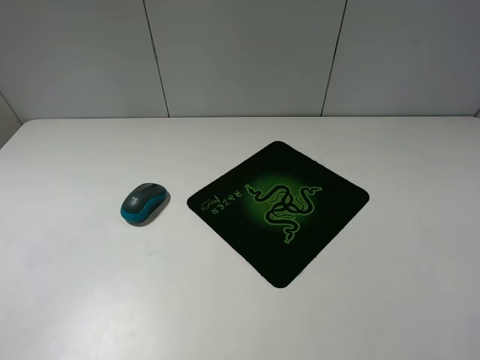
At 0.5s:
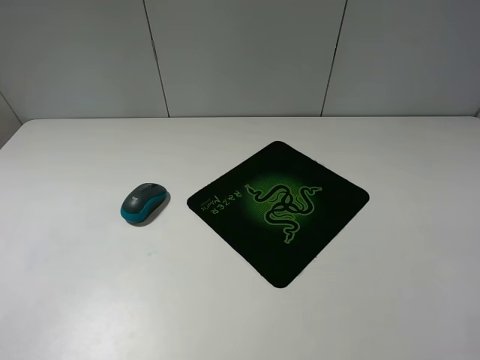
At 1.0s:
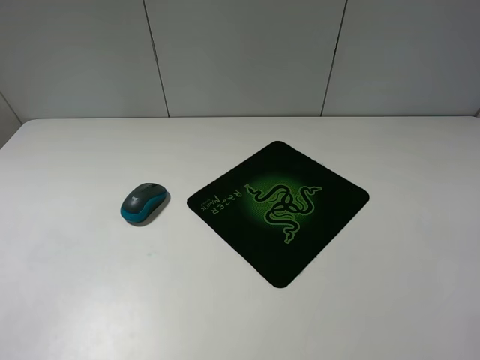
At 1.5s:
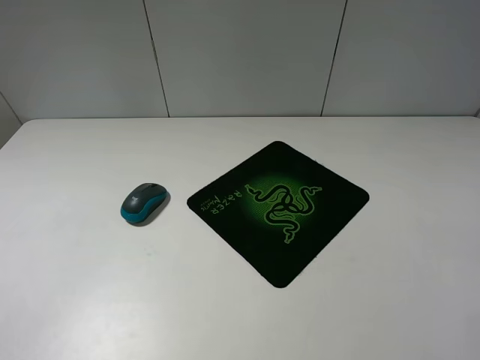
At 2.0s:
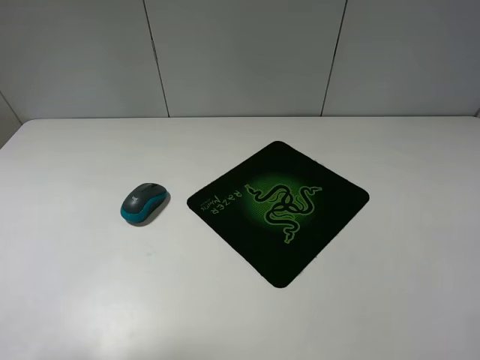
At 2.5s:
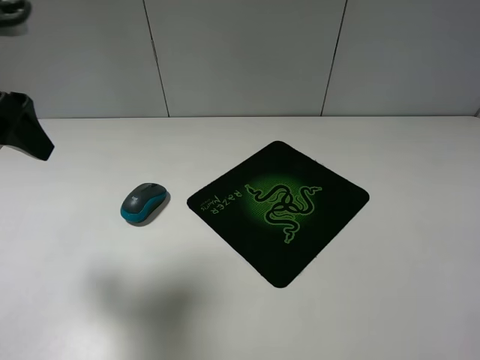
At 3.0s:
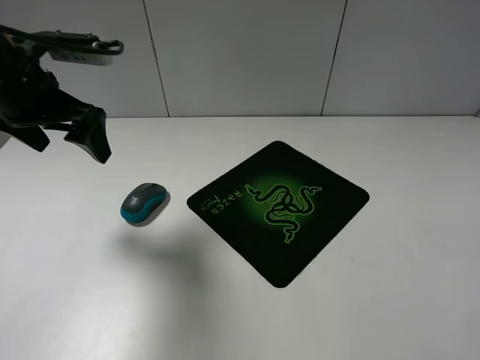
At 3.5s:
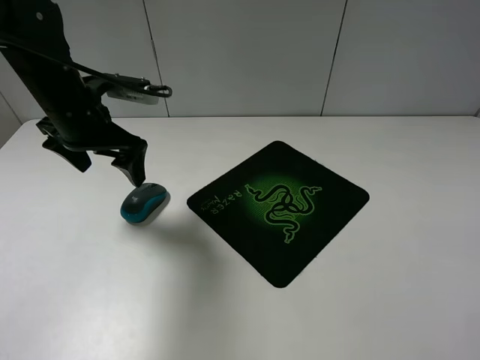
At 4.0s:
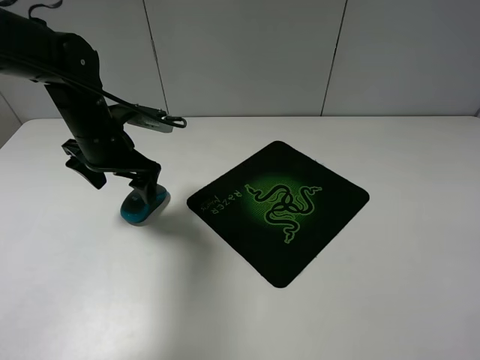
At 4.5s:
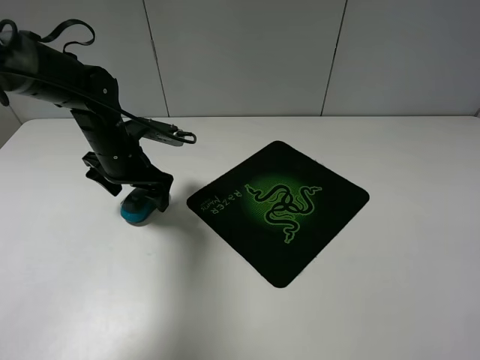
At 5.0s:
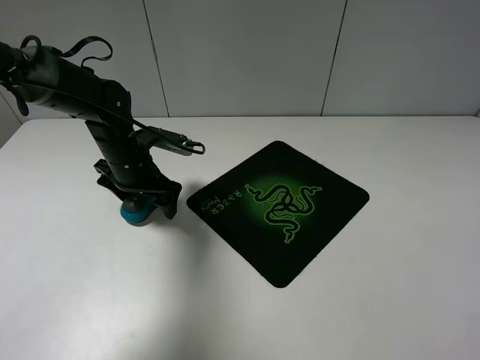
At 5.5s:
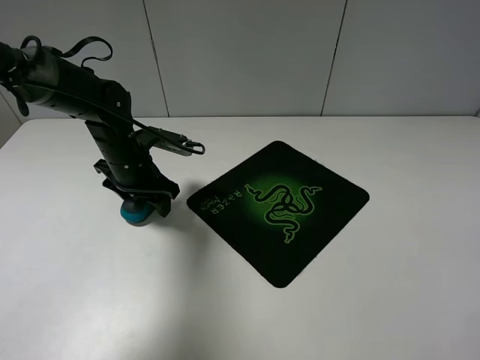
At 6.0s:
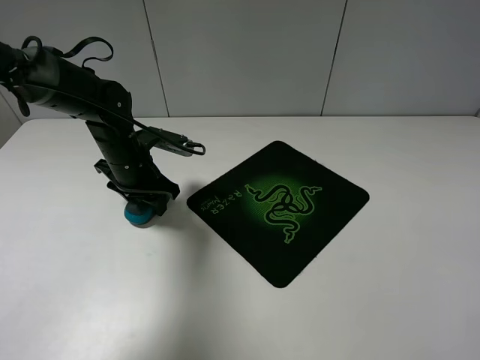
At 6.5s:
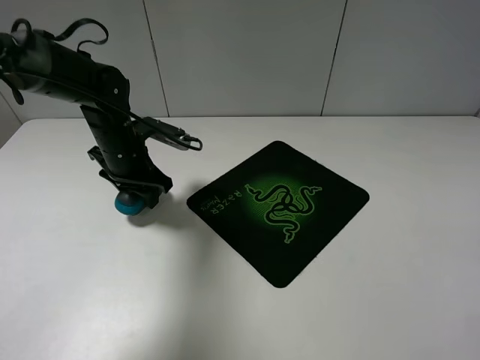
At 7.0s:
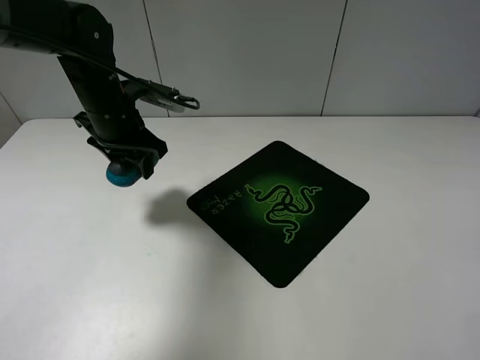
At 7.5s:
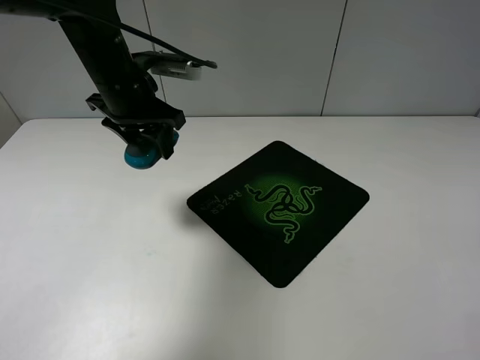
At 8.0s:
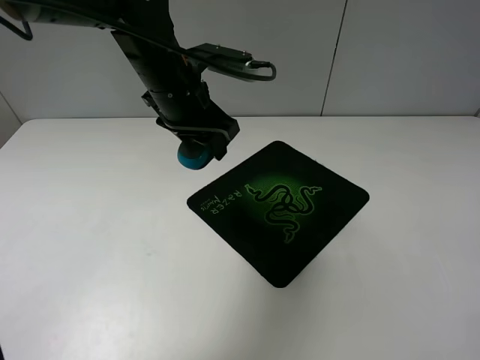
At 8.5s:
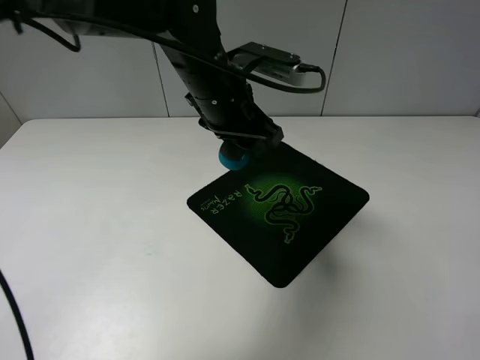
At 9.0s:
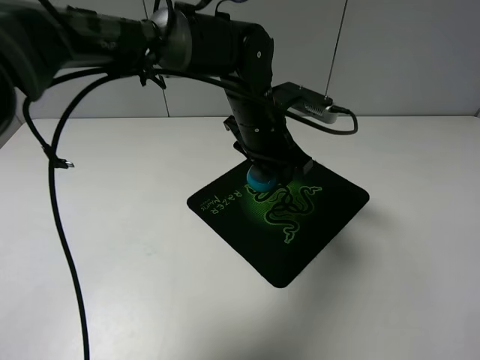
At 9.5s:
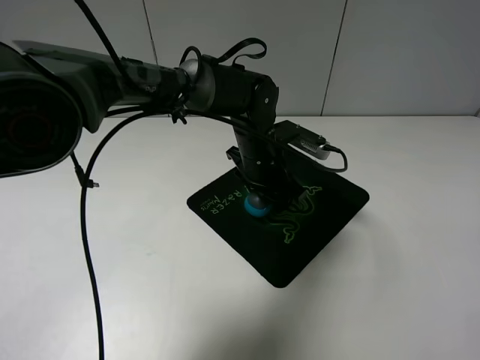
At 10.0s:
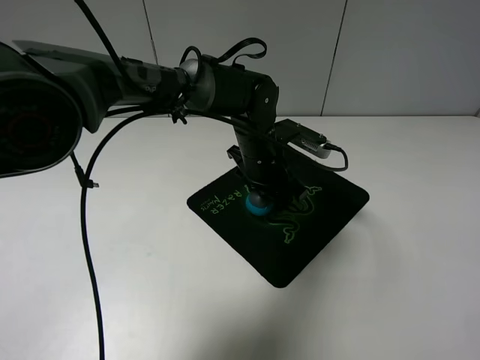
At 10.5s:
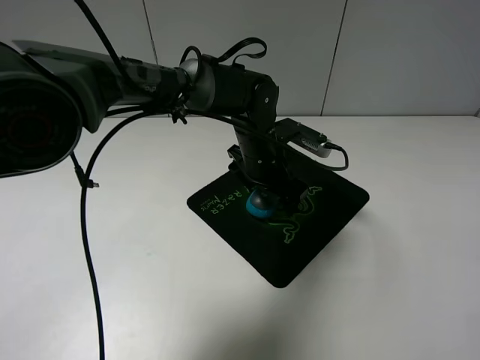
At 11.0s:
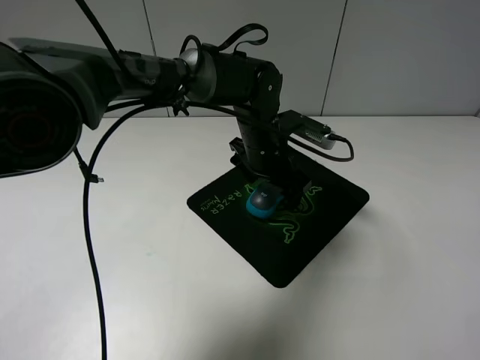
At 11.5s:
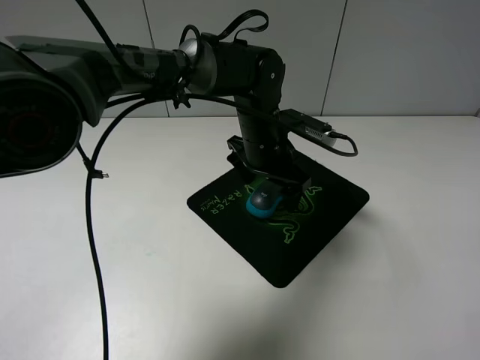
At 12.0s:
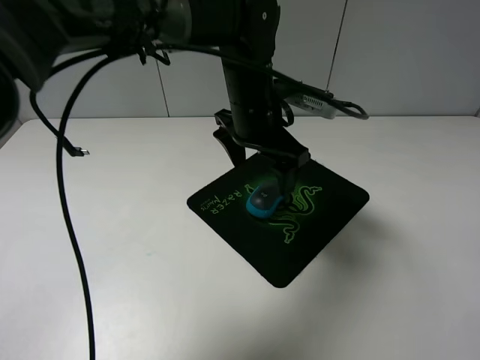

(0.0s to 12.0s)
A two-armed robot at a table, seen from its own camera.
Step, 0.0s - 6.0s: Grasp the mouse with the left gripper.
Step, 6.5s - 10.5s: Place the mouse on the mouse mat with the left gripper.
0.0s - 2.0s: The left gripper shifts about 15 cm forward and upward.
2.0s - 4.0s: The left gripper moves forward, downward and to the right, approximately 35 cm.
4.0s - 6.0s: The left gripper heads downward, covering about 5 cm, and closes up.
6.0s - 8.0s: The left gripper shifts approximately 15 cm upward and to the right.
8.0s - 10.0s: The left gripper is displaced downward and to the right by about 15 cm.
10.0s - 12.0s: The left gripper travels upward by roughly 10 cm, and opens its fingers.

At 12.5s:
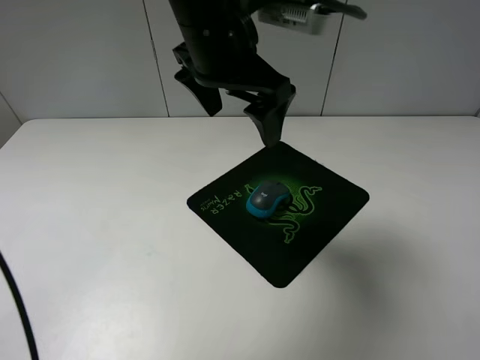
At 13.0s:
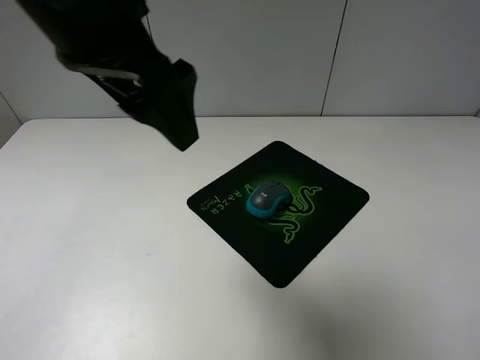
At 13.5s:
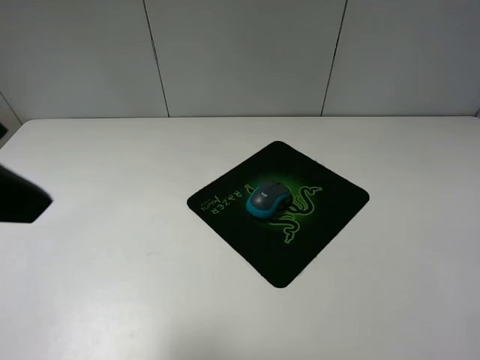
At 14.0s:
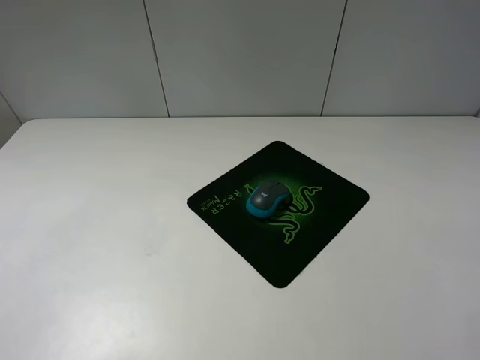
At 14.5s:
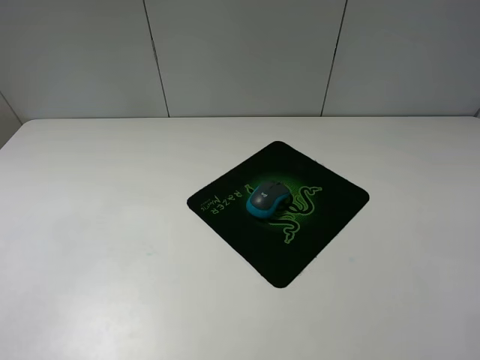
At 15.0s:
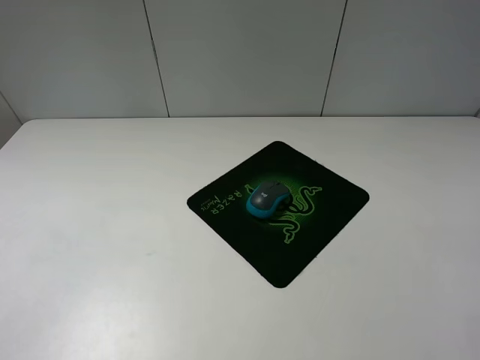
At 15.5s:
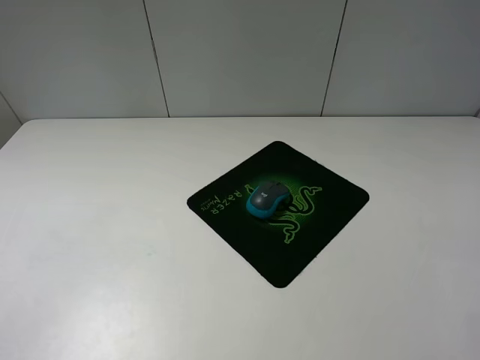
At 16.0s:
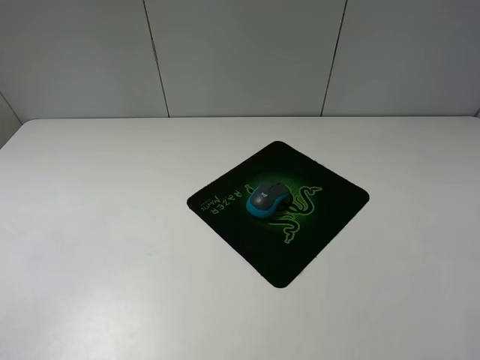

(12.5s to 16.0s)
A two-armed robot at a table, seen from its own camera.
12.5s - 14.5s: The left gripper shifts some 40 cm to the left and backward.
